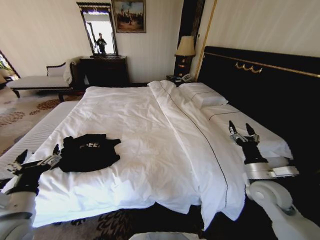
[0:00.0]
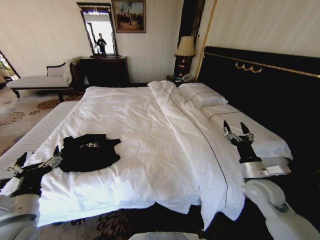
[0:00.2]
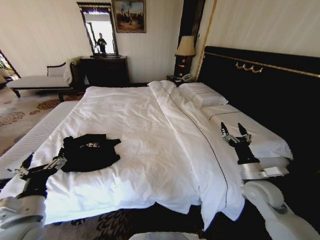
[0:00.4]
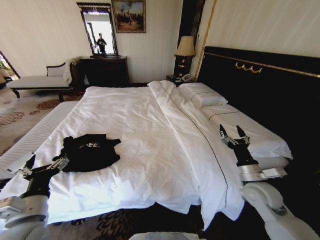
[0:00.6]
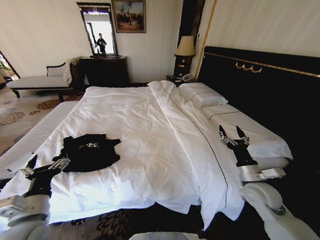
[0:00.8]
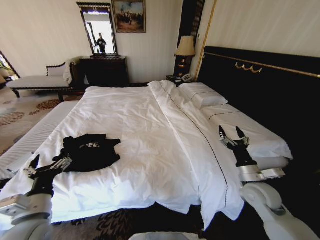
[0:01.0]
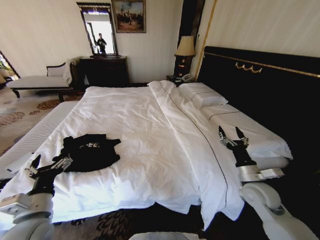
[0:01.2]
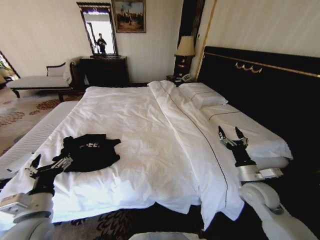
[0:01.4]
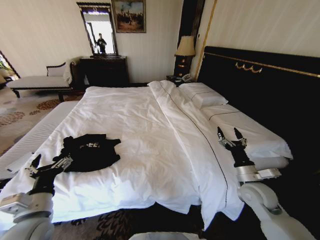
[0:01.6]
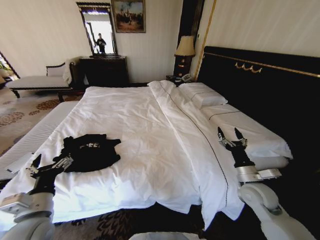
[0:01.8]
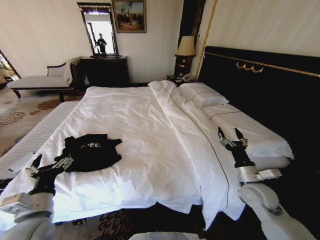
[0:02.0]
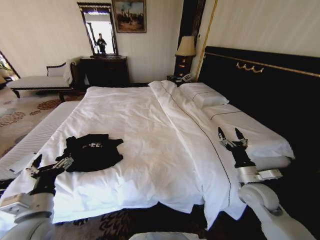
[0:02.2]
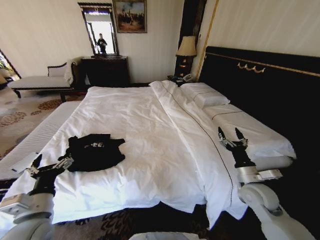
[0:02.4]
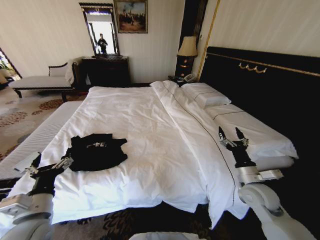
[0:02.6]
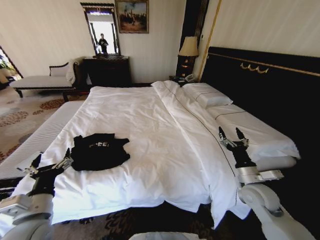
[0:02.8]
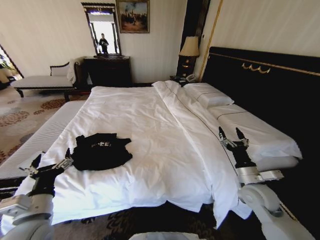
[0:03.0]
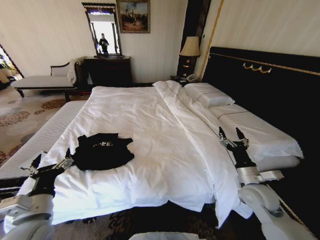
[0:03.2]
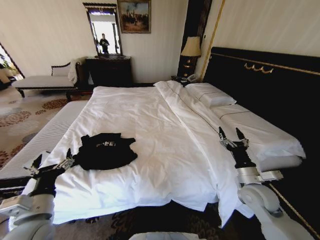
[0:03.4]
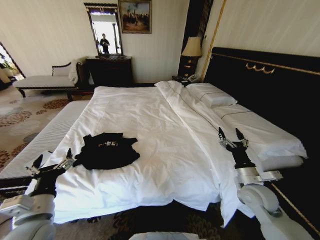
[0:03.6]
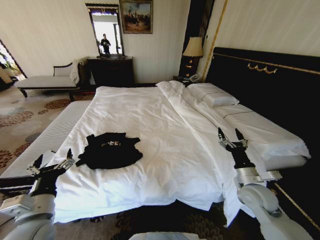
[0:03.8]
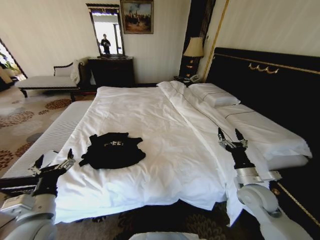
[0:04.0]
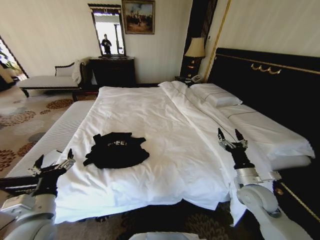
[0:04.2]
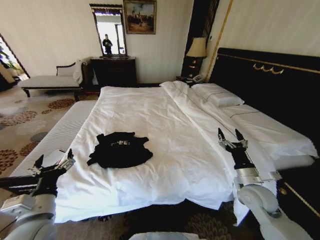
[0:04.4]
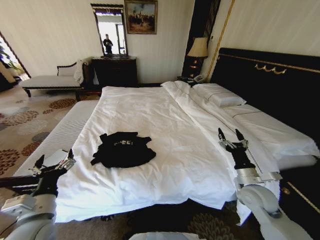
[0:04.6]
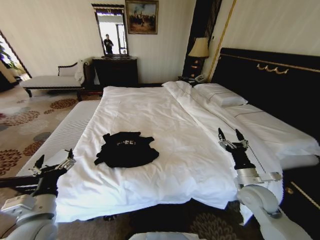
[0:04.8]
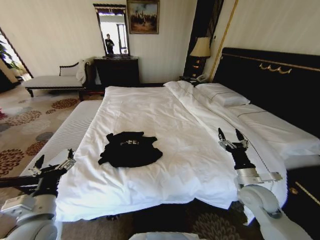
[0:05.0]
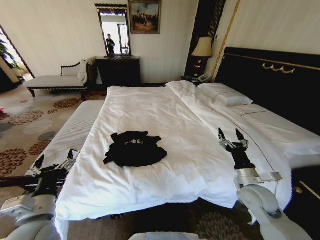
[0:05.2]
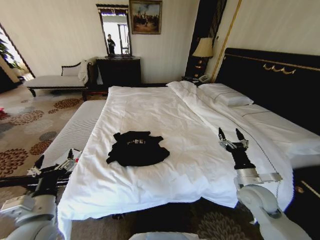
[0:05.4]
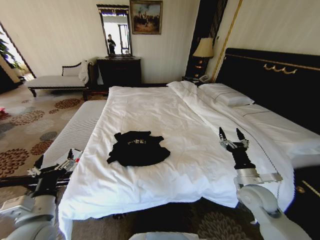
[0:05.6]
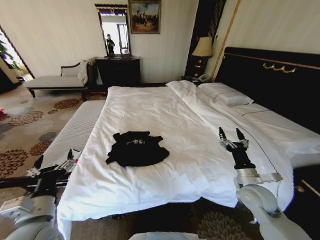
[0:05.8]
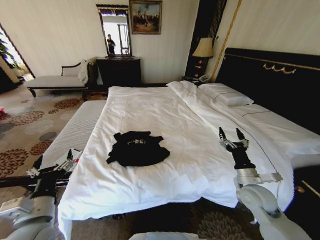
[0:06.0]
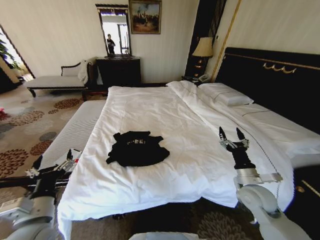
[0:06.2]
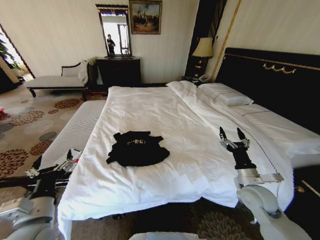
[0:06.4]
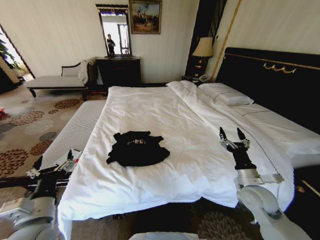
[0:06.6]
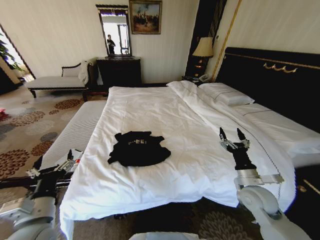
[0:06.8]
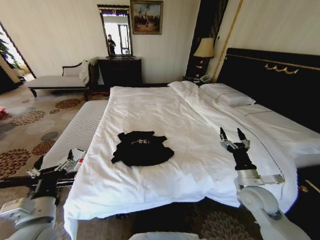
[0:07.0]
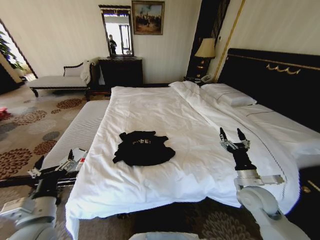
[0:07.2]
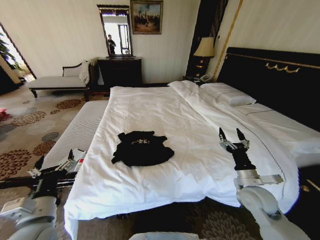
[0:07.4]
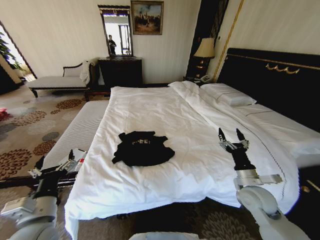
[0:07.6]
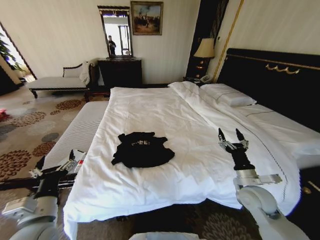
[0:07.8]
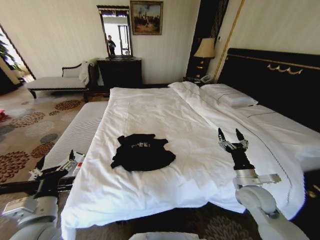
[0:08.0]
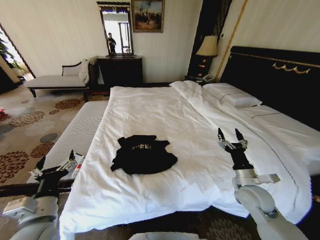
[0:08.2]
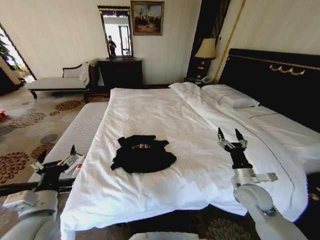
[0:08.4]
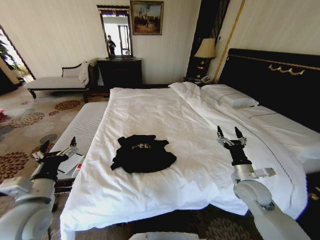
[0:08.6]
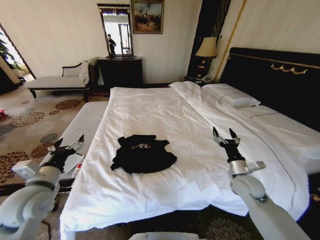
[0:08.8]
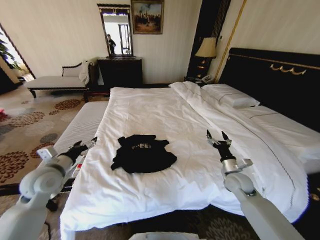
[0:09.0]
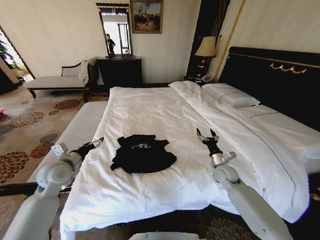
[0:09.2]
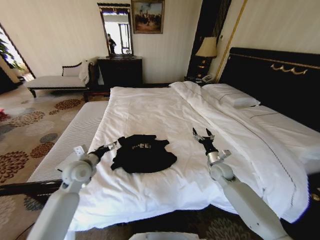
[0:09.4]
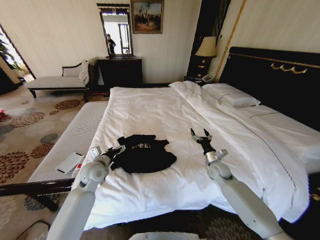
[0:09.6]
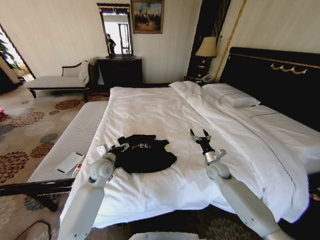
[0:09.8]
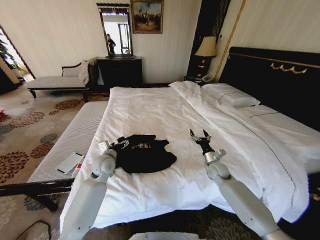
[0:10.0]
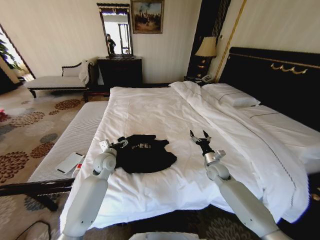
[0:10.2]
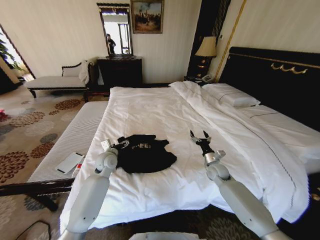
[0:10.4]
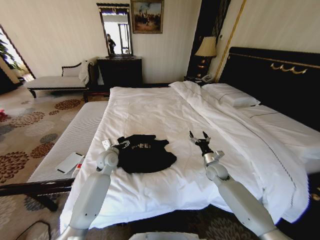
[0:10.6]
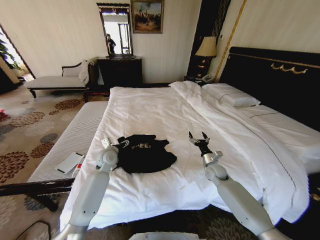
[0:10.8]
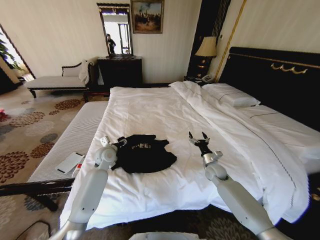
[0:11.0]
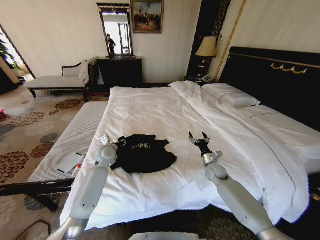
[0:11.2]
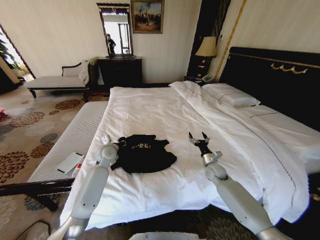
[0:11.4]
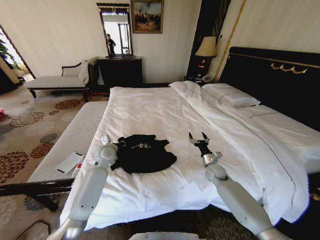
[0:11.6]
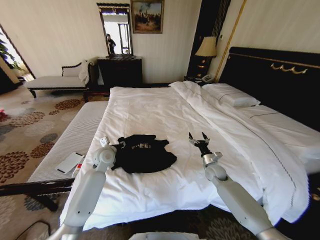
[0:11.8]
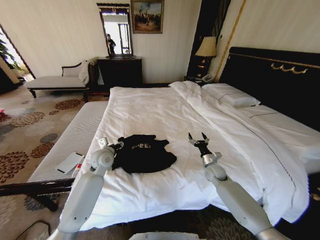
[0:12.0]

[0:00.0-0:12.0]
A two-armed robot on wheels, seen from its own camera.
Task of the whole recording: Fold the clothes on the bed.
0:00.0 to 0:01.6: The grippers move only a little.
0:06.0 to 0:07.6: Both grippers stay about where they are.
0:07.6 to 0:09.0: The left gripper shifts roughly 15 cm forward and to the left, while the right gripper heads forward, covering about 10 cm.
0:09.0 to 0:10.4: The right gripper heads forward, covering approximately 10 cm. Meanwhile the left gripper heads to the right, forward and downward, covering roughly 20 cm.
0:10.4 to 0:12.0: The left gripper closes.

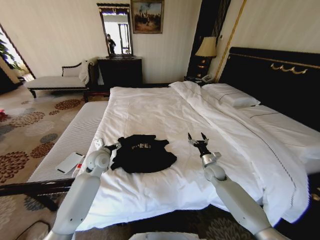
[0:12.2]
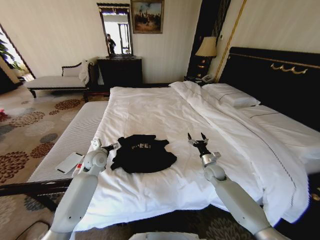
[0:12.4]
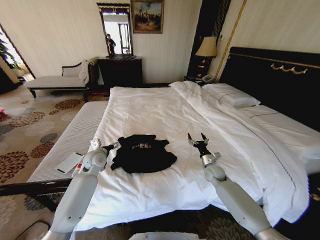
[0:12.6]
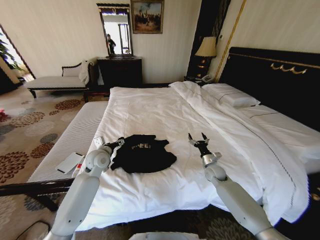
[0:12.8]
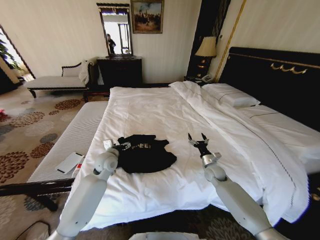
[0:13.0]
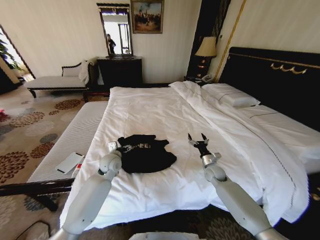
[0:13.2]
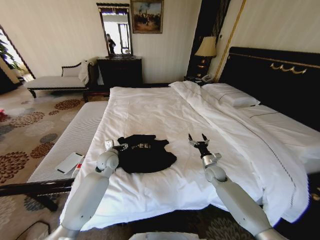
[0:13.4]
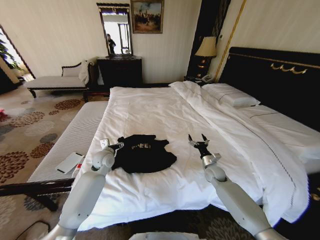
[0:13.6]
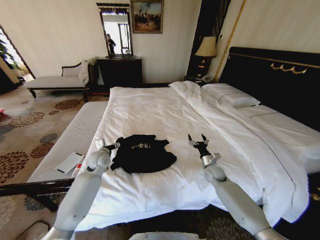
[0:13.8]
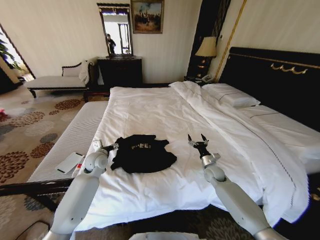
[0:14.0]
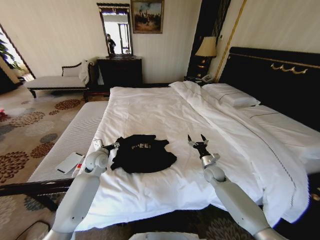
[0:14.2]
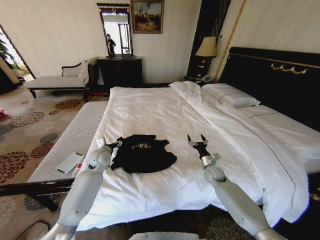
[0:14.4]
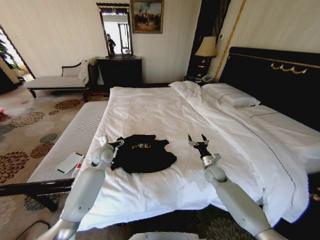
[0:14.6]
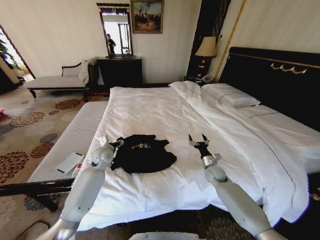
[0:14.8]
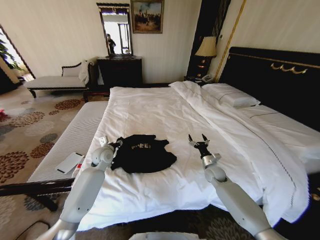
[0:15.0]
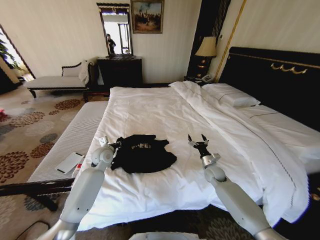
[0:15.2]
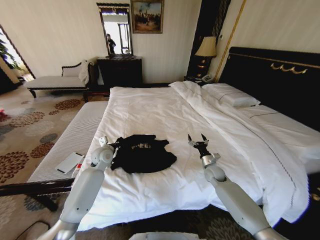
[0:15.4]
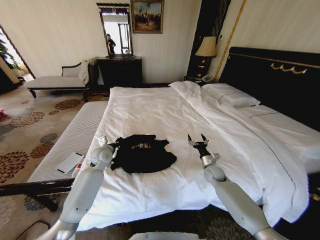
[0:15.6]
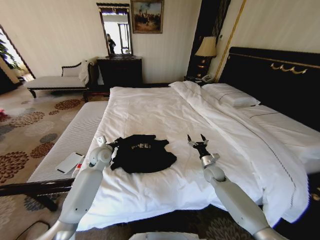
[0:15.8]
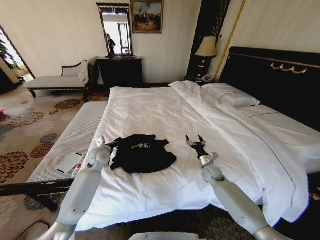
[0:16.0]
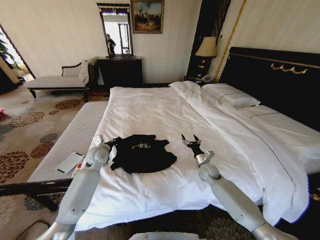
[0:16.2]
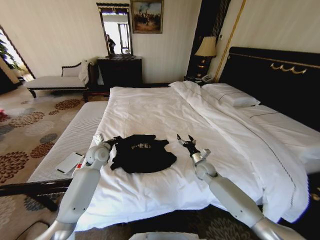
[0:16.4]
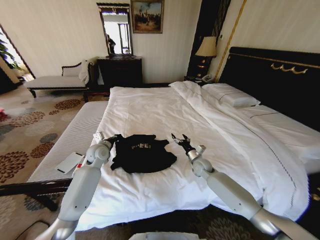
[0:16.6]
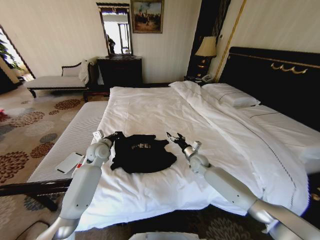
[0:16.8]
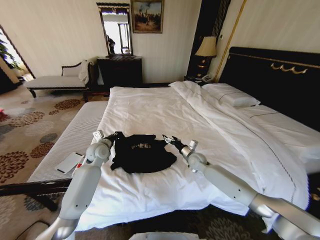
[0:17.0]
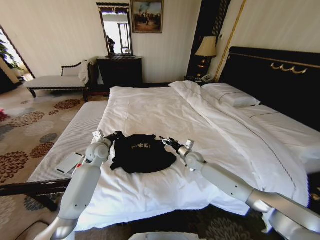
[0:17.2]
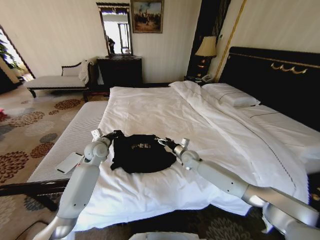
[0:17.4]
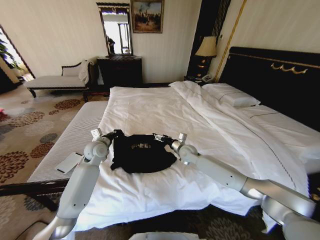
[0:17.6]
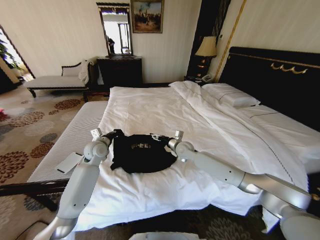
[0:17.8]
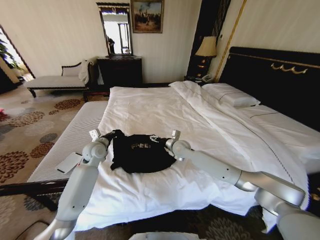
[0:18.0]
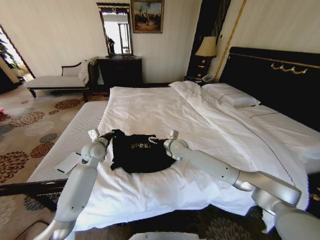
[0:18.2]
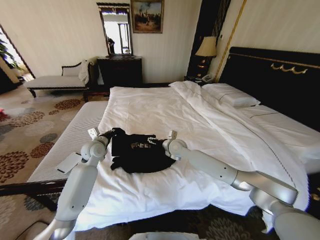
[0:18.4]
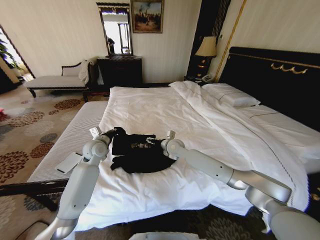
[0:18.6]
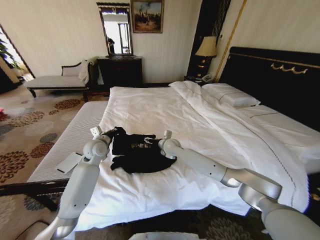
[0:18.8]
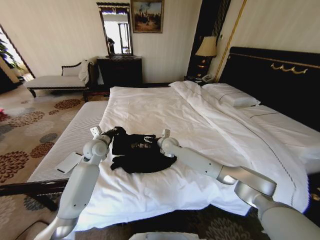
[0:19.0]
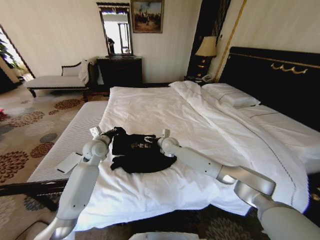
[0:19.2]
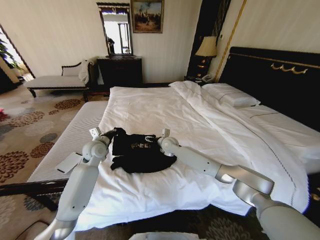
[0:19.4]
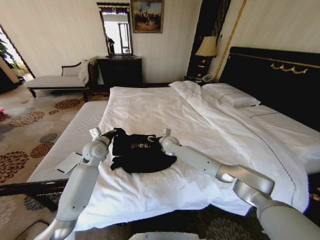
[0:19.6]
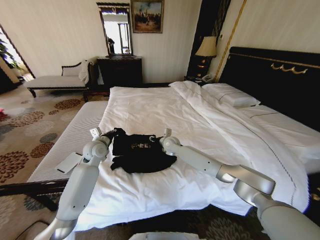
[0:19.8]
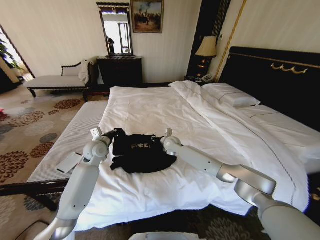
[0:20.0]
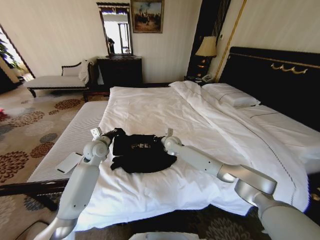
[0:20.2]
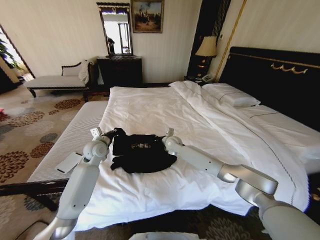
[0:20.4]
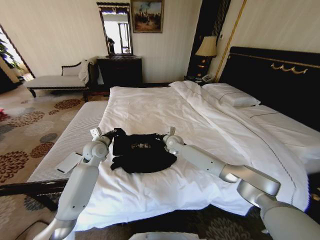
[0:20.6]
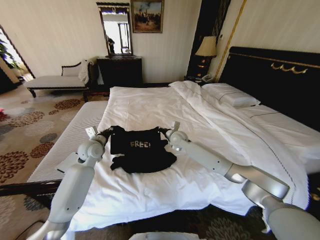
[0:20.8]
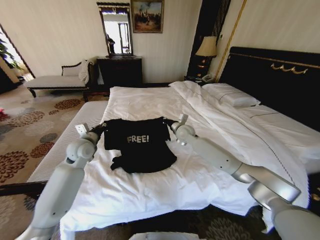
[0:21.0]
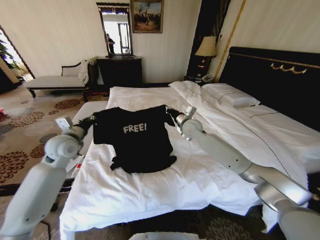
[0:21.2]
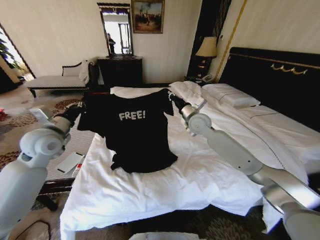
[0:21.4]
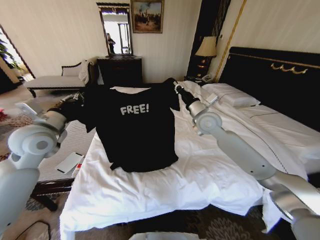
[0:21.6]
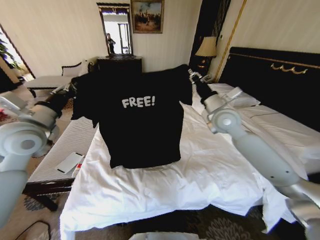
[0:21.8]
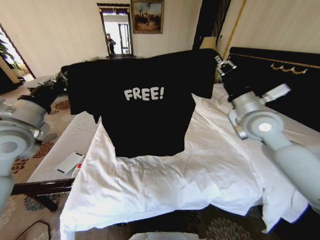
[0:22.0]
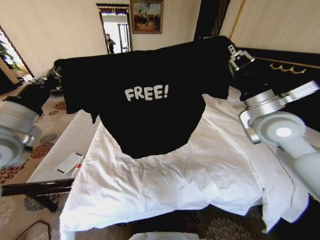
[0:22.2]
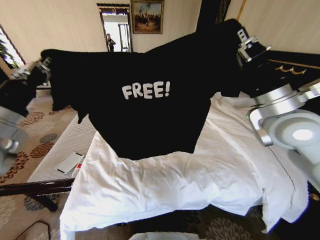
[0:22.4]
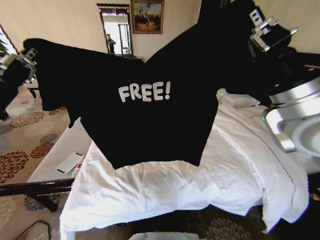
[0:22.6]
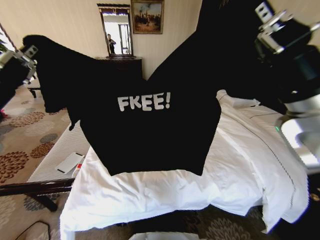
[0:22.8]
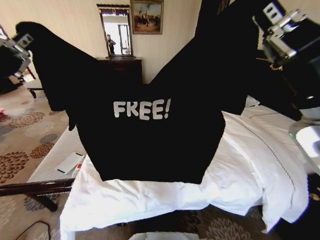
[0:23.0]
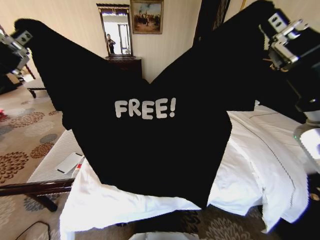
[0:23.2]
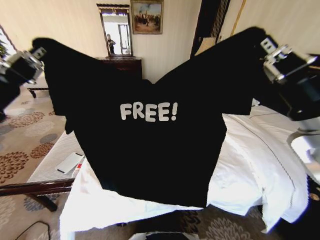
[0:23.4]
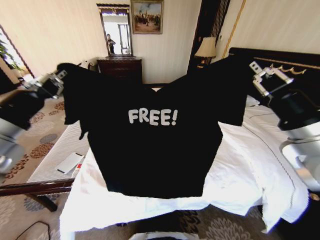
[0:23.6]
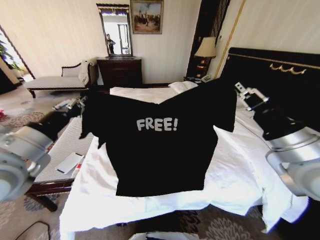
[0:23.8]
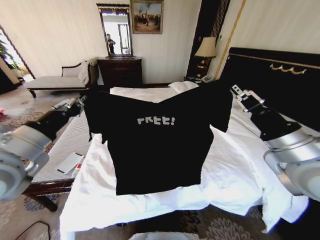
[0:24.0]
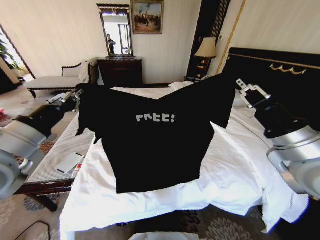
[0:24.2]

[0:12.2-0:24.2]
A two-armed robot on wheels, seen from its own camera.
Task of the whole recording: Fold the clothes on the bed.
0:12.2 to 0:13.8: The grippers move only a little.
0:13.8 to 0:15.2: The left gripper closes.
0:15.2 to 0:16.6: The left gripper closes. The right gripper goes approximately 5 cm to the left.
0:16.6 to 0:18.2: The right gripper travels to the left and upward by some 15 cm.
0:18.2 to 0:19.8: The right gripper changes place by roughly 5 cm, and closes up.
0:19.8 to 0:21.2: The left gripper shifts roughly 15 cm upward, to the left and backward. Meanwhile the right gripper travels upward and to the right by roughly 15 cm, and closes.
0:21.2 to 0:22.6: The right gripper is displaced backward, upward and to the right by roughly 35 cm. Meanwhile the left gripper moves backward and upward, some 25 cm.
0:22.6 to 0:24.2: The right gripper goes about 10 cm downward and backward.
